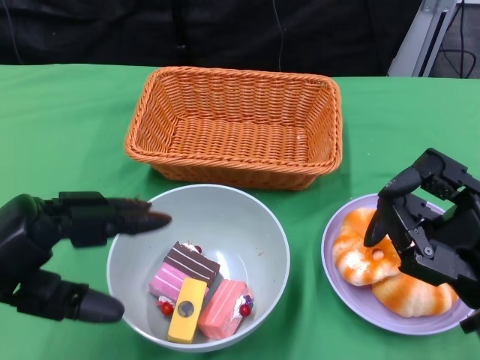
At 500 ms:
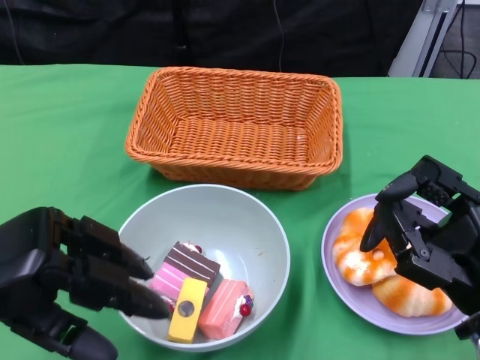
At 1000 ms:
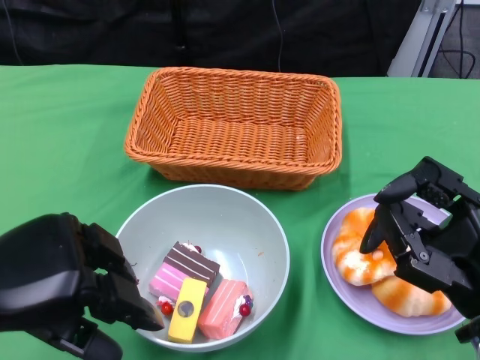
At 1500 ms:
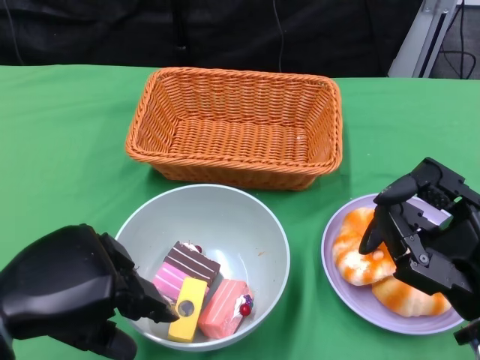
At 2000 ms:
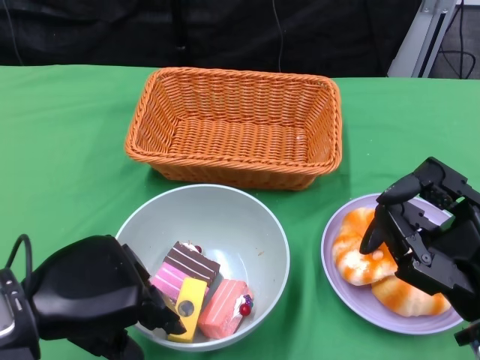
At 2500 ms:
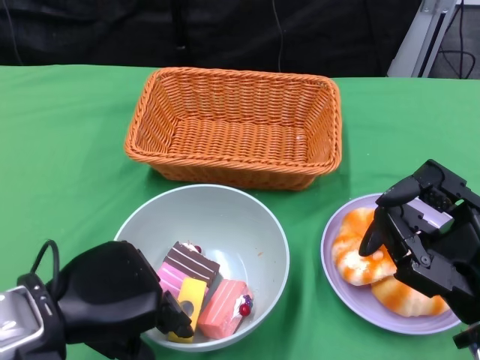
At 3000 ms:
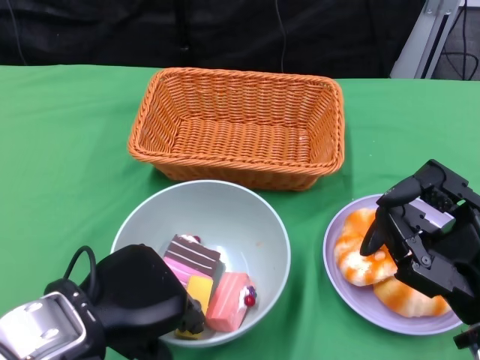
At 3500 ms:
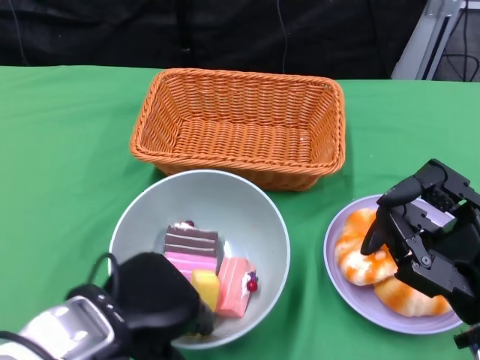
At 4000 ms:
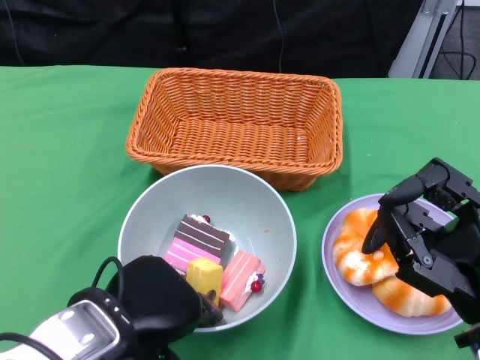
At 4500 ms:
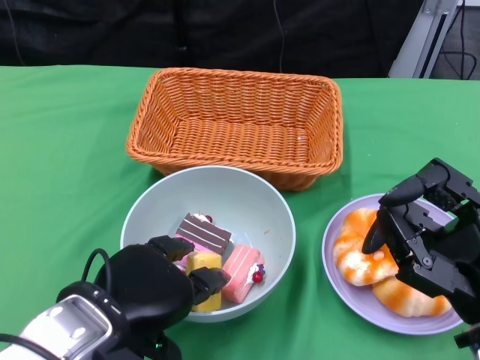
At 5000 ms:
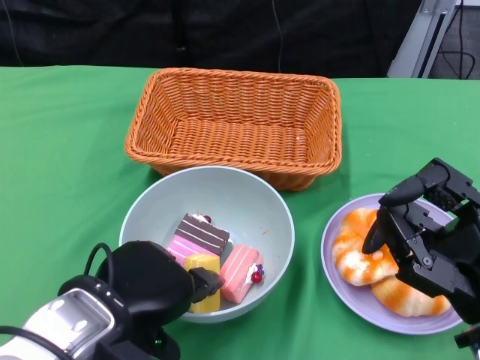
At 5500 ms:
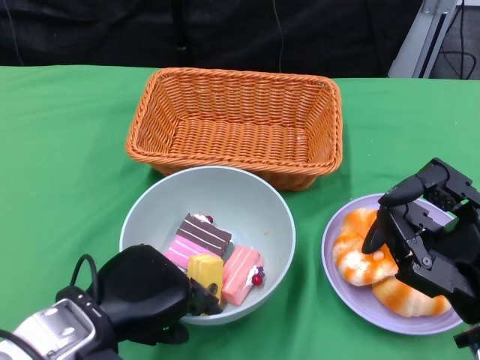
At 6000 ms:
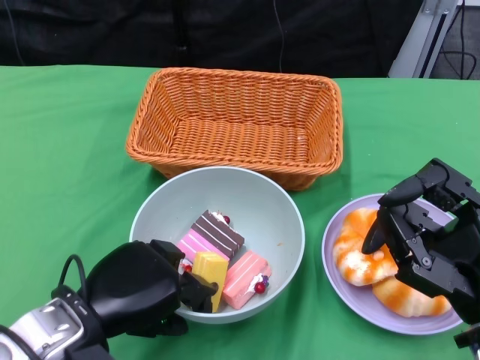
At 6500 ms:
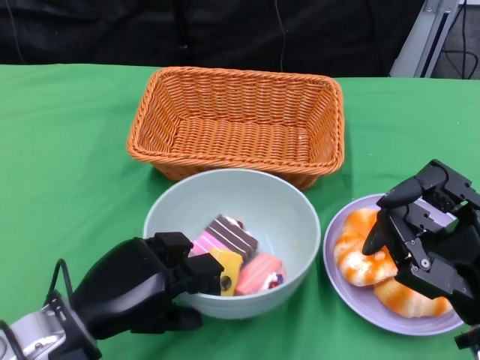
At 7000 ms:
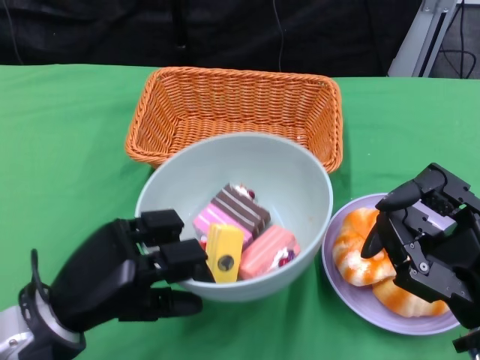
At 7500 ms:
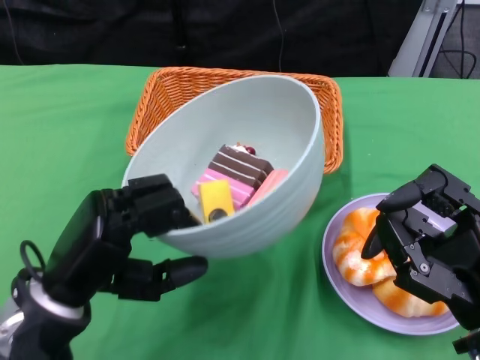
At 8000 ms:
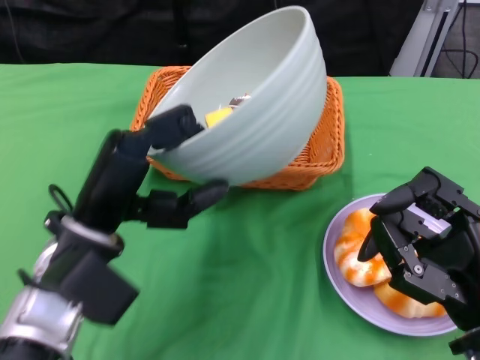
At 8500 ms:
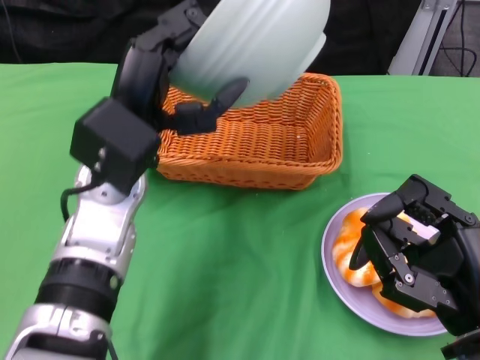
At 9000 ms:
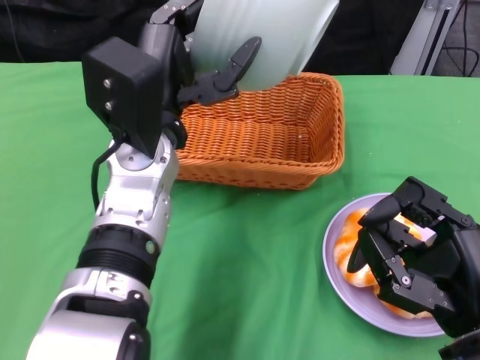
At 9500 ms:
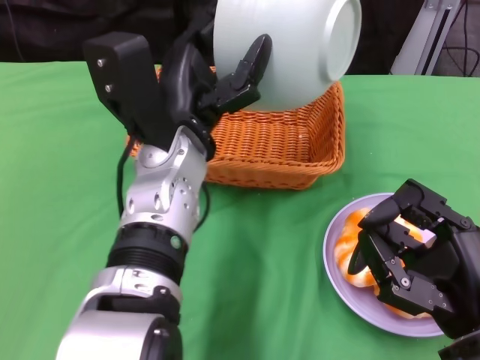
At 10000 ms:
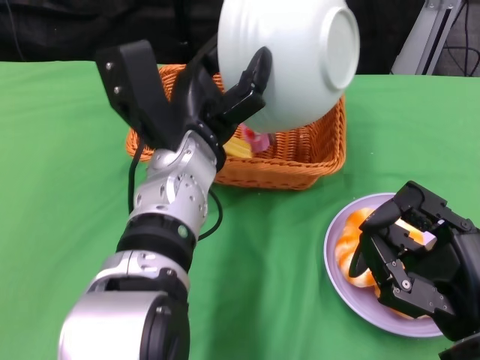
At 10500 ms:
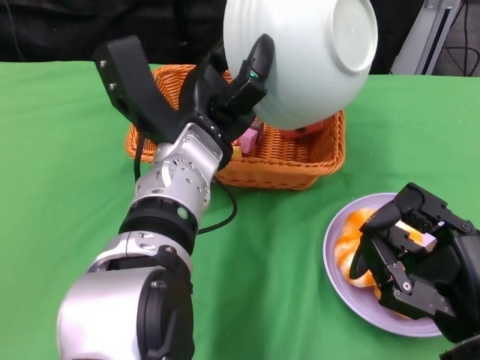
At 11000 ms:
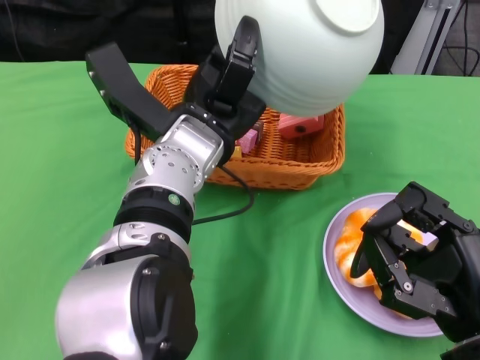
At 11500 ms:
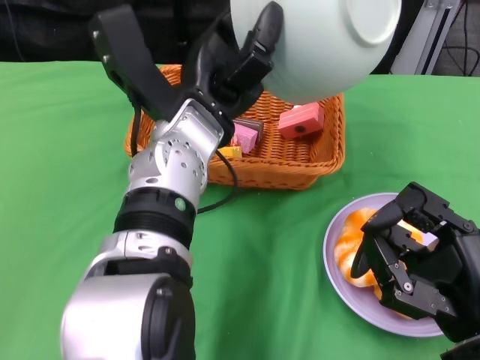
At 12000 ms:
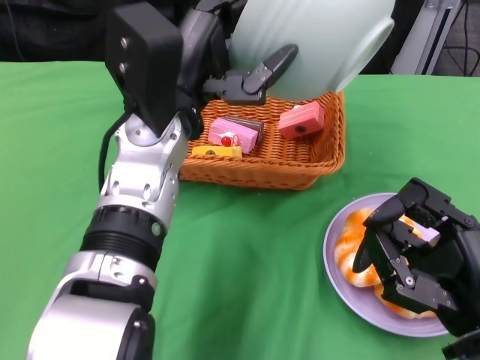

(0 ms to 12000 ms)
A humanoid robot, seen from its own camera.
Step, 0 ms - 6000 ms: Grasp the bowl with the left gripper.
Step, 6500 ms - 11500 ms: Pour the cake into the basket with the left gripper.
2000 ms - 4000 ms: The left hand goes some 5 cm to the right.
6000 ms - 8000 ms: The left hand ends up about 5 cm from where it was.
8000 ms - 10000 ms: The left hand heads to the right and forward, covering approximately 15 cm.

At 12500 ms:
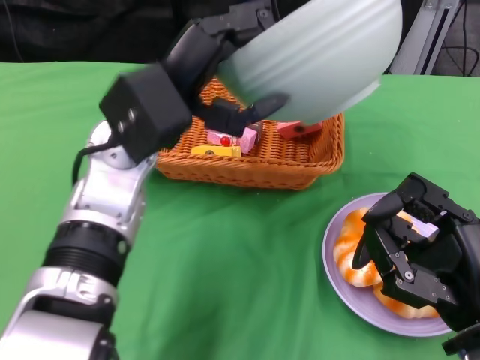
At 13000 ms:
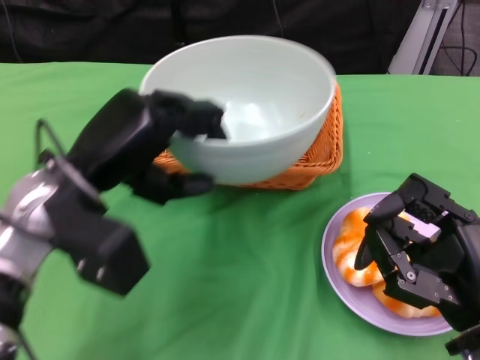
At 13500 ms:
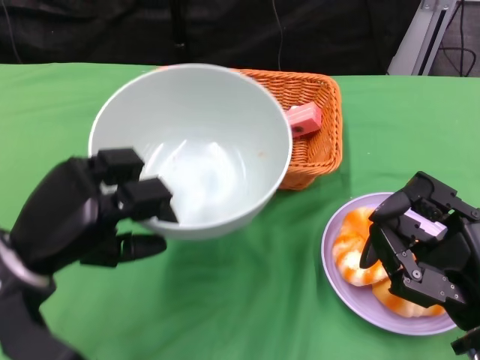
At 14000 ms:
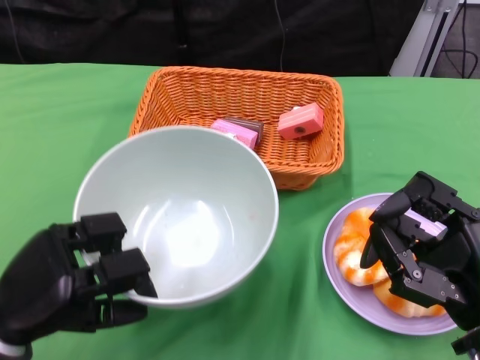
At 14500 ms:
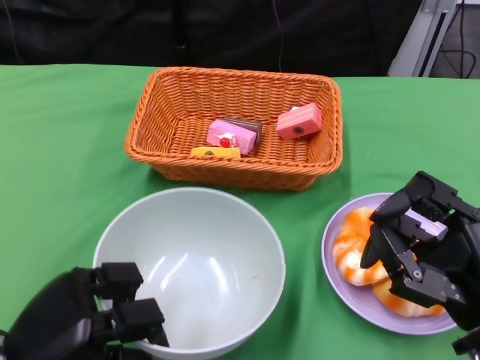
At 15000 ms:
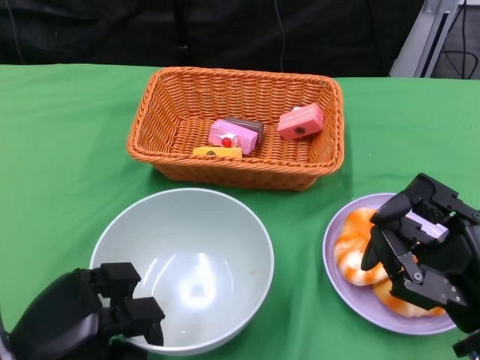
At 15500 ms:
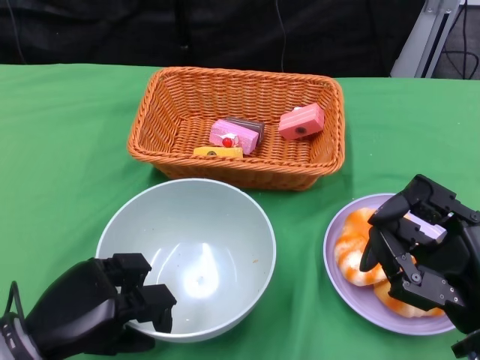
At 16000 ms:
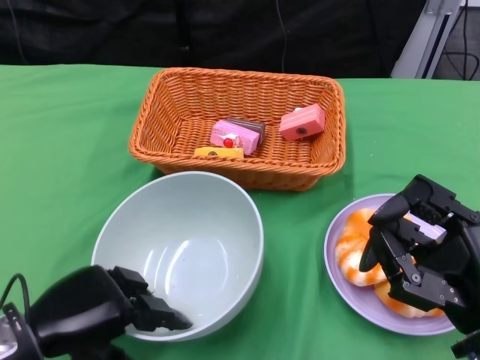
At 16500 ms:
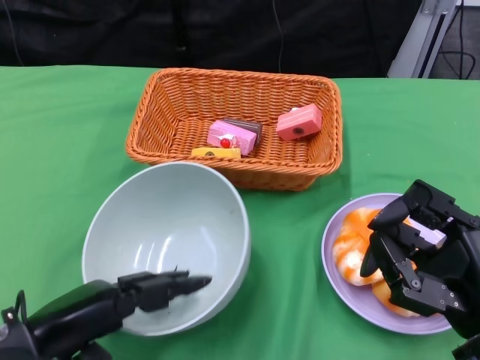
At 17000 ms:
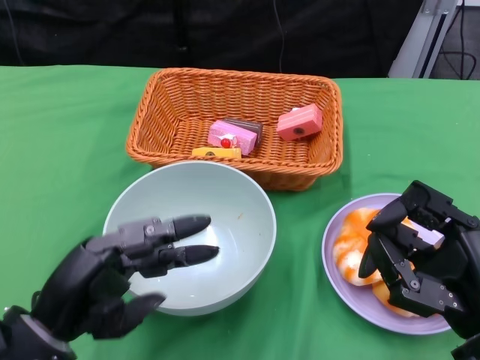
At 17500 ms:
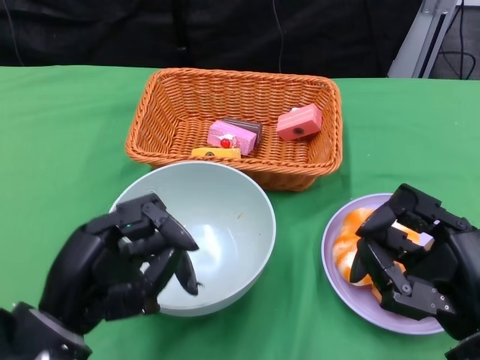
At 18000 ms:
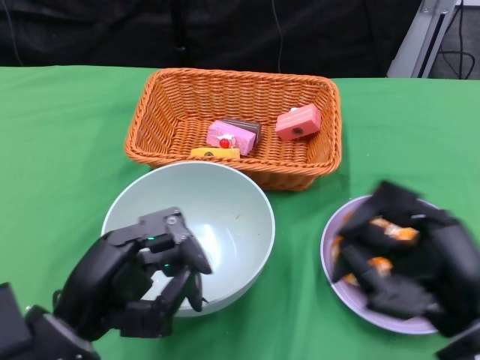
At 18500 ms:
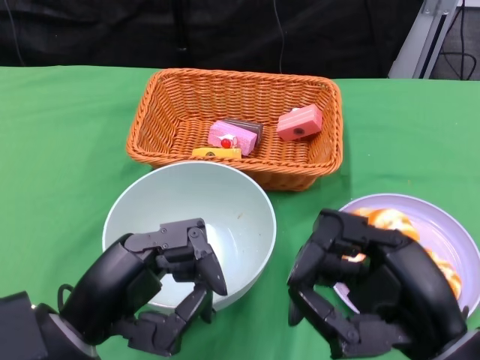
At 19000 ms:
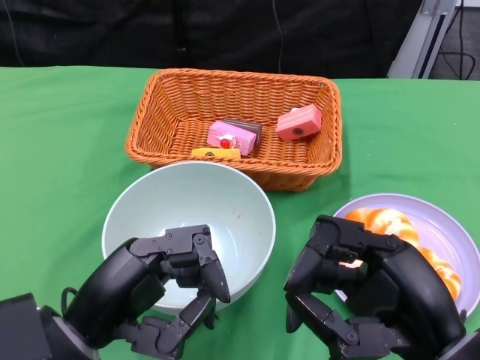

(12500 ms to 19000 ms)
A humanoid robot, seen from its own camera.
Step, 12500 ms - 16500 ms: Place the bowl on the table with the left gripper.
12500 ms - 14500 ms: The left hand is displaced downward, backward and to the left by approximately 25 cm.
17000 ms - 19000 ms: The right hand moves some 5 cm.

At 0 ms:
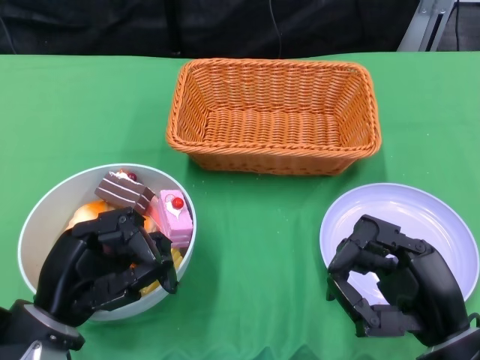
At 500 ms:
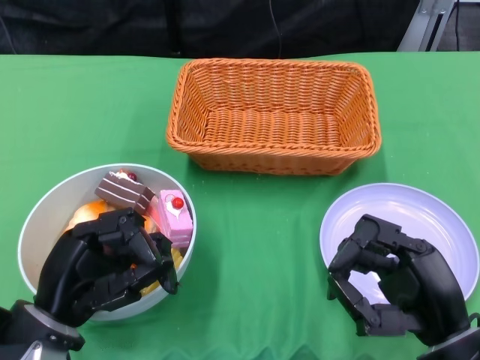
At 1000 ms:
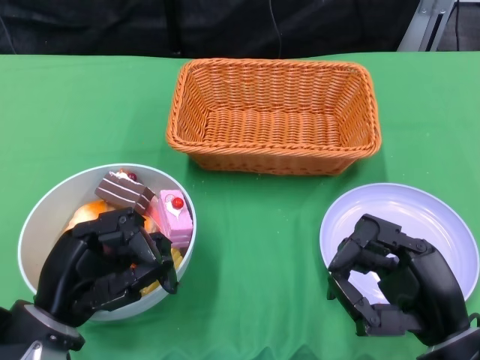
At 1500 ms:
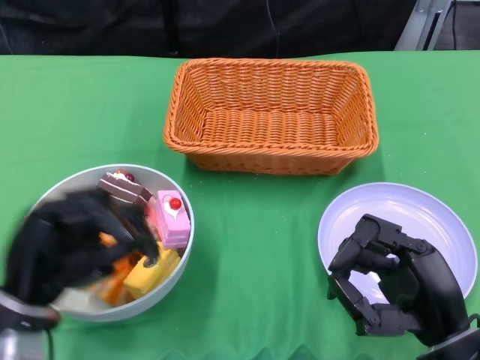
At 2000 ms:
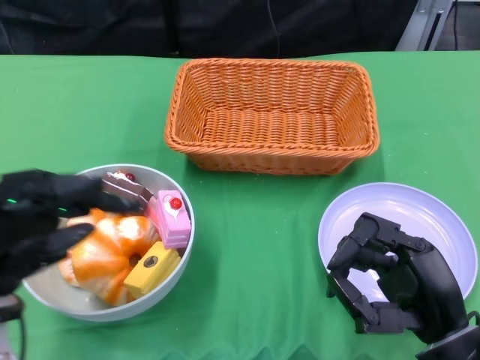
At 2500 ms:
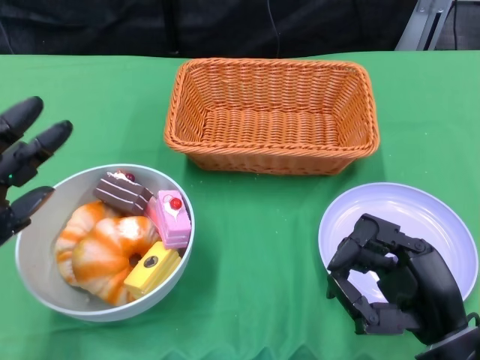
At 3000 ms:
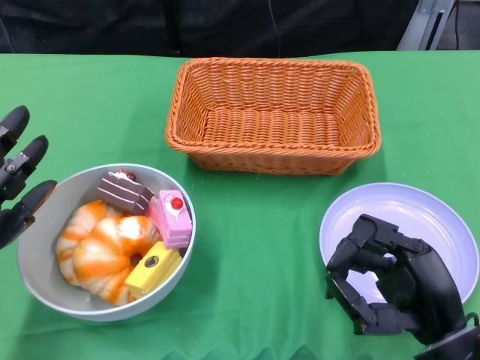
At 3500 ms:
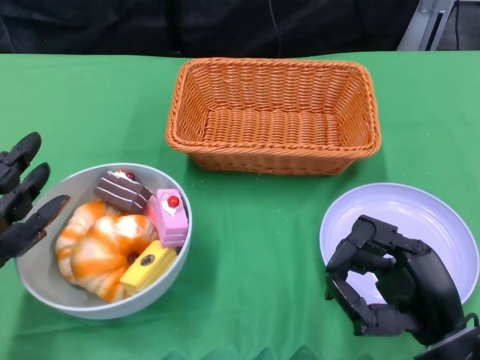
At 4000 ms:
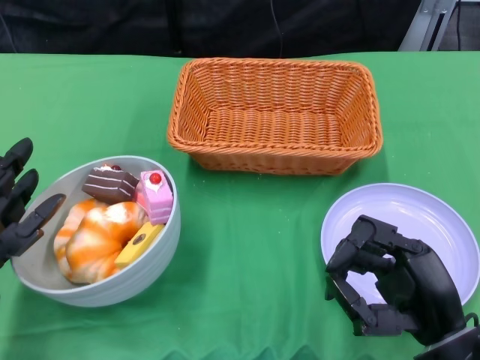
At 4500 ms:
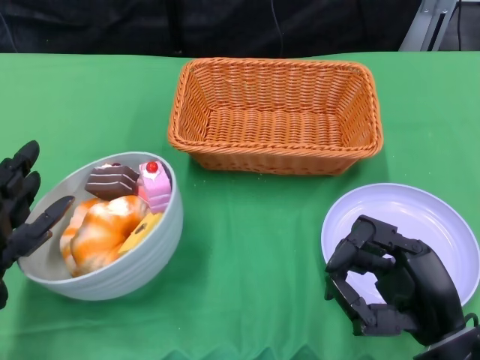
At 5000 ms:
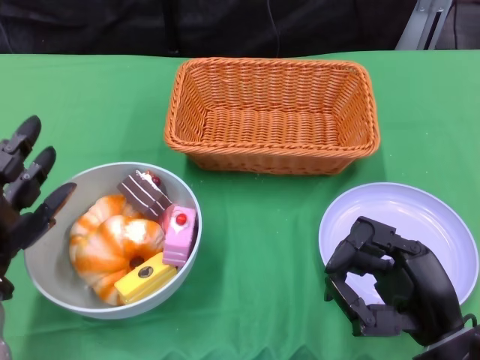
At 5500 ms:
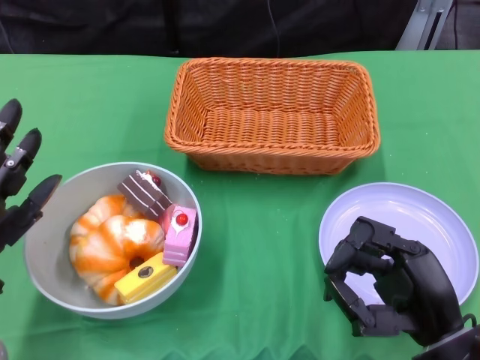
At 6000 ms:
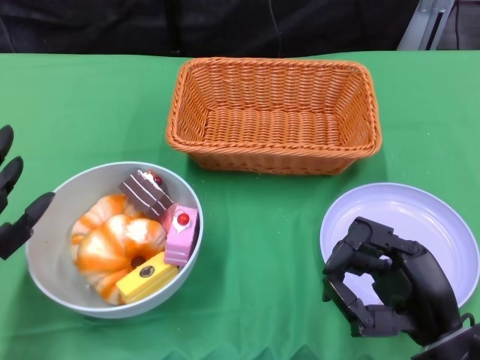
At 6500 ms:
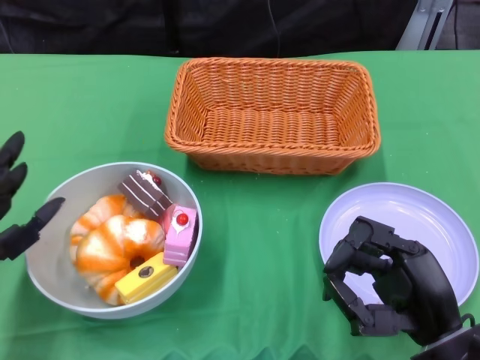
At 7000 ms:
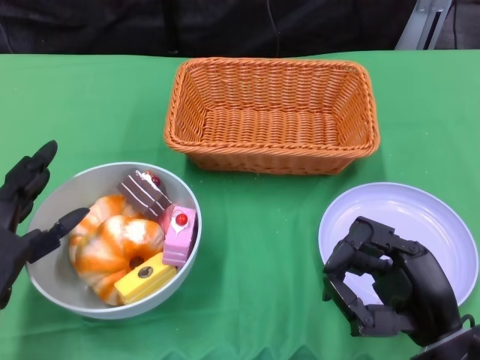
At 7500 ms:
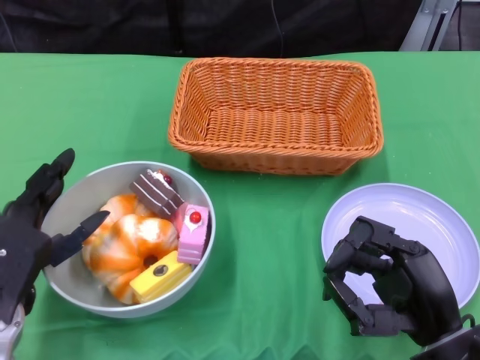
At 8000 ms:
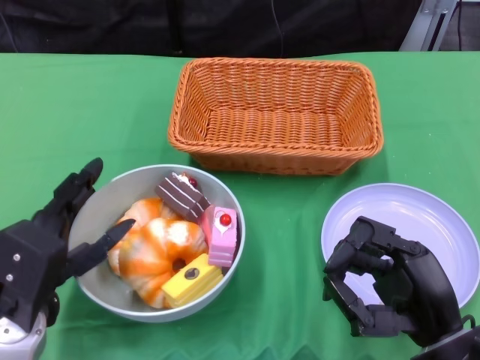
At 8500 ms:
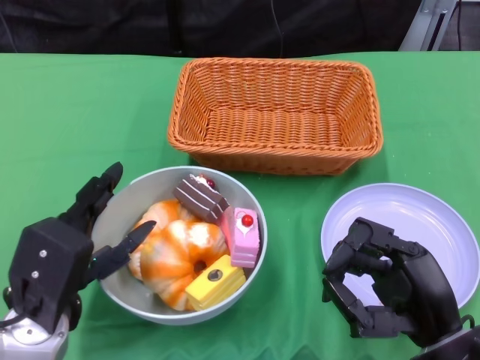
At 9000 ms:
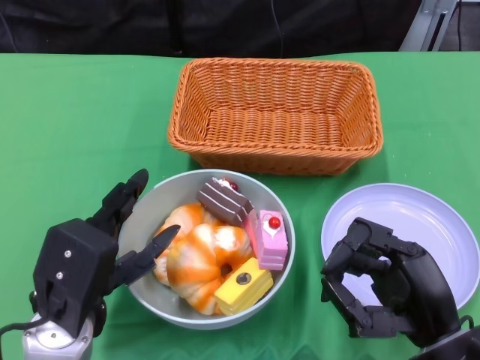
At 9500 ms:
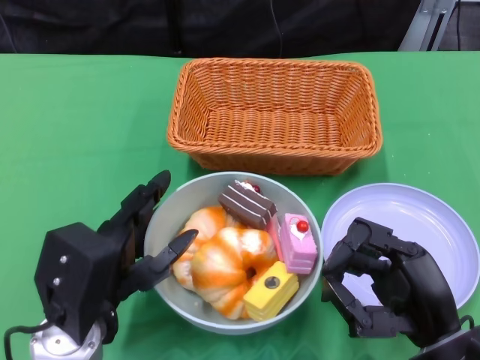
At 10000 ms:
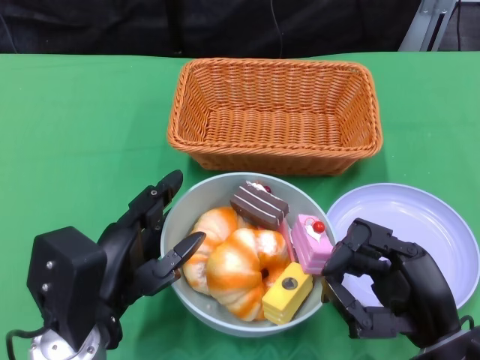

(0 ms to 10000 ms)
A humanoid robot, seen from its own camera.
2000 ms - 4000 ms: The left hand moves about 5 cm.
4000 ms - 6000 ms: The hands move only a little.
6000 ms - 8000 ms: The left hand goes roughly 5 cm to the right.
8000 ms - 10000 ms: The left hand goes roughly 5 cm to the right.
